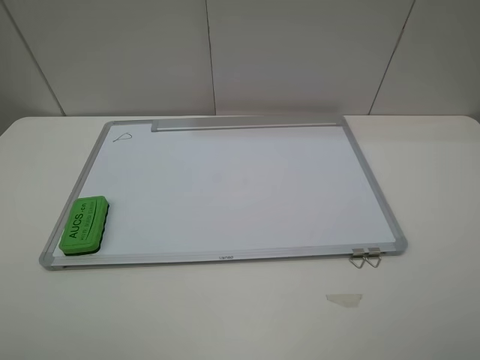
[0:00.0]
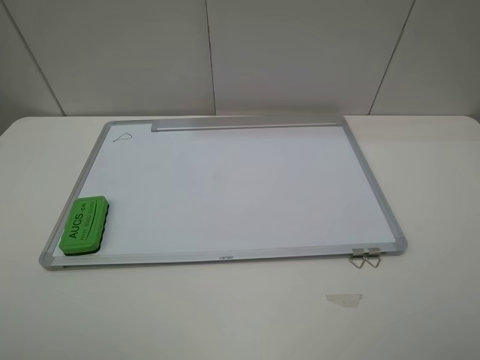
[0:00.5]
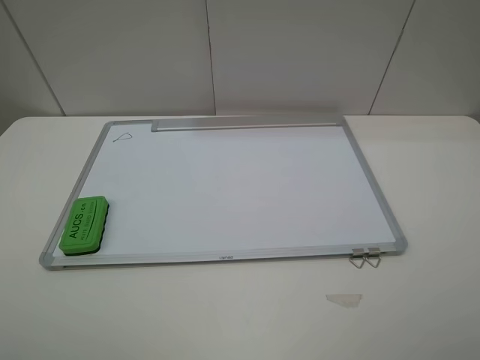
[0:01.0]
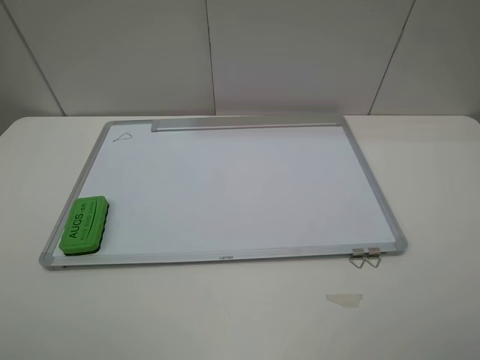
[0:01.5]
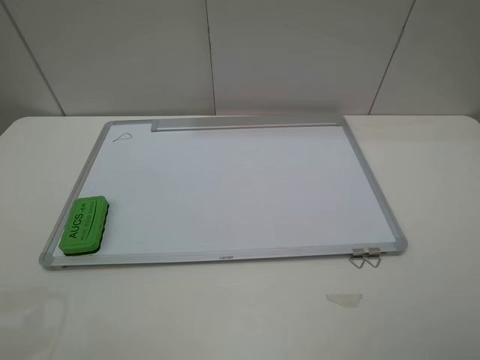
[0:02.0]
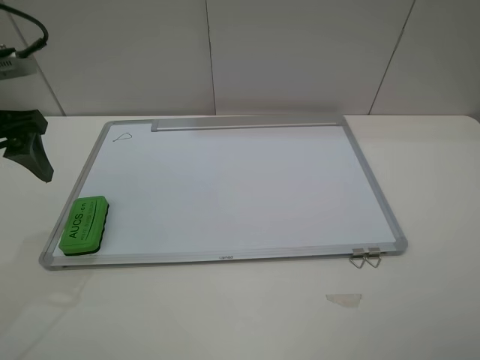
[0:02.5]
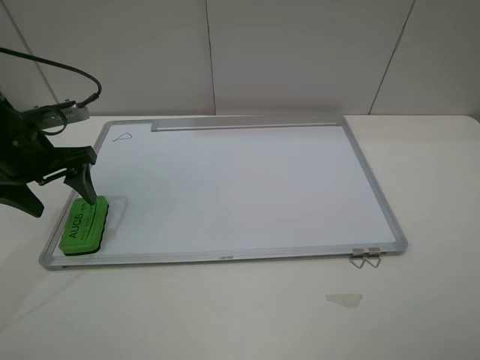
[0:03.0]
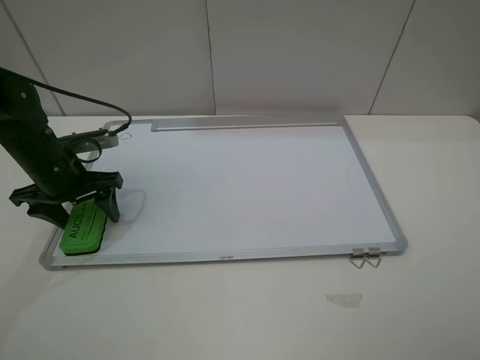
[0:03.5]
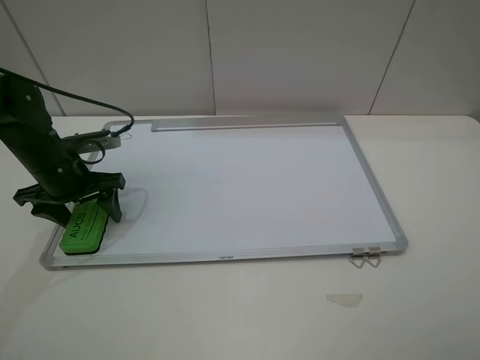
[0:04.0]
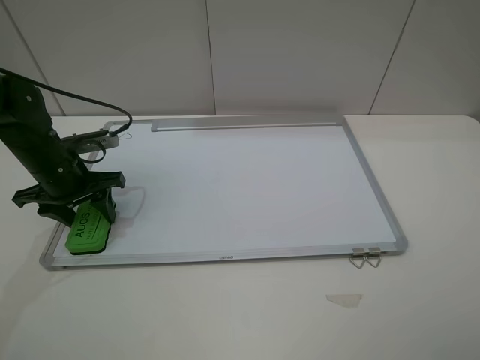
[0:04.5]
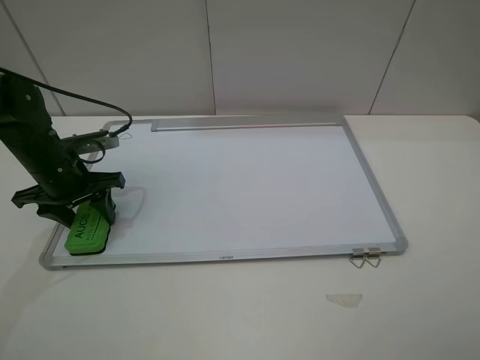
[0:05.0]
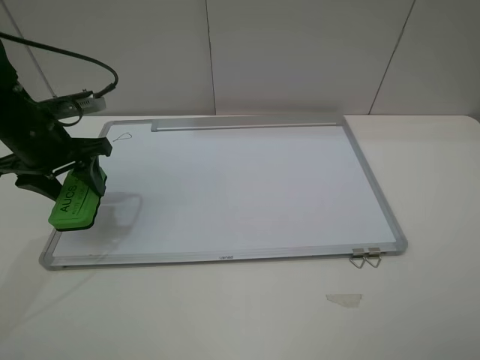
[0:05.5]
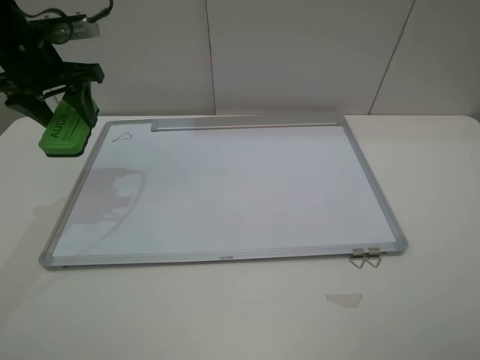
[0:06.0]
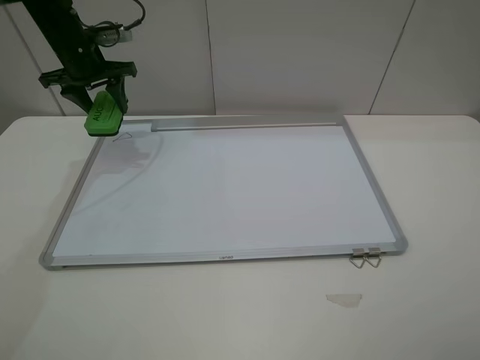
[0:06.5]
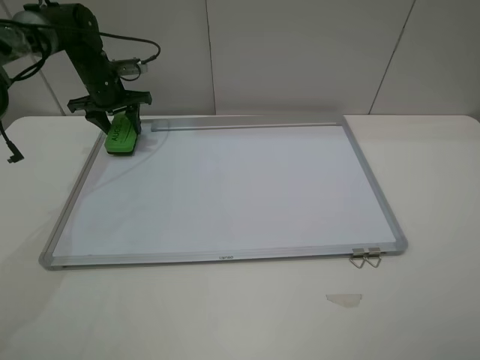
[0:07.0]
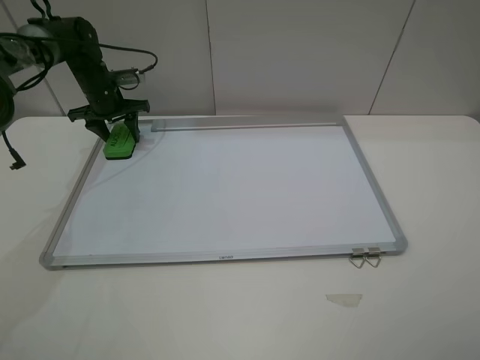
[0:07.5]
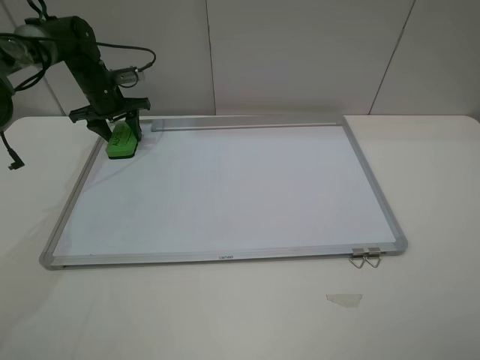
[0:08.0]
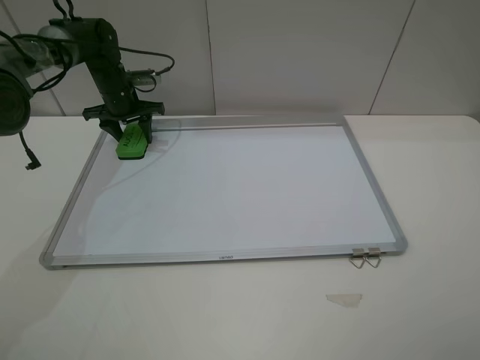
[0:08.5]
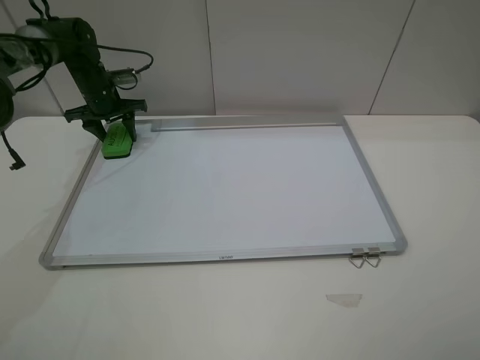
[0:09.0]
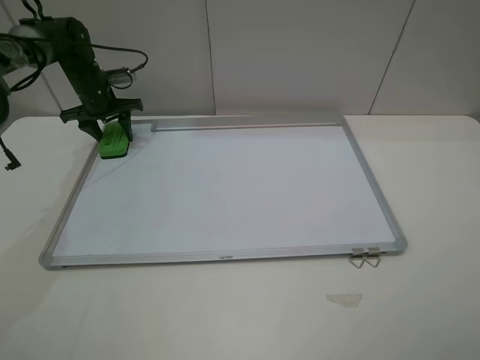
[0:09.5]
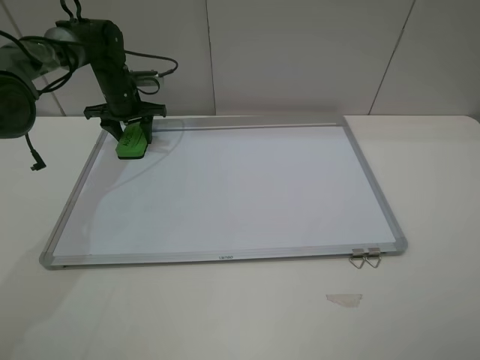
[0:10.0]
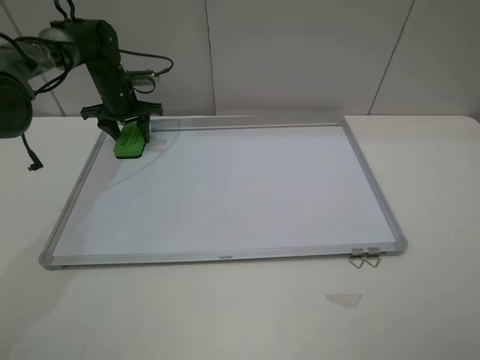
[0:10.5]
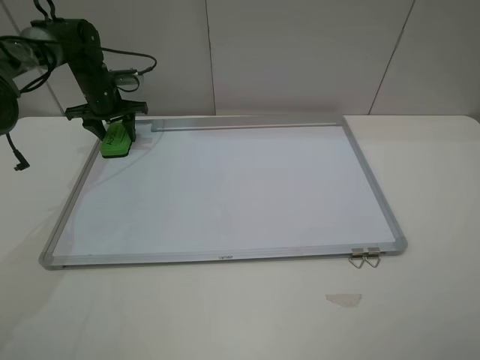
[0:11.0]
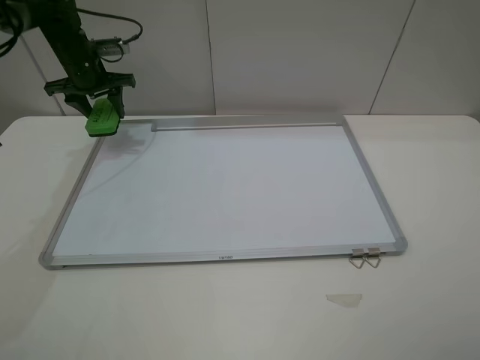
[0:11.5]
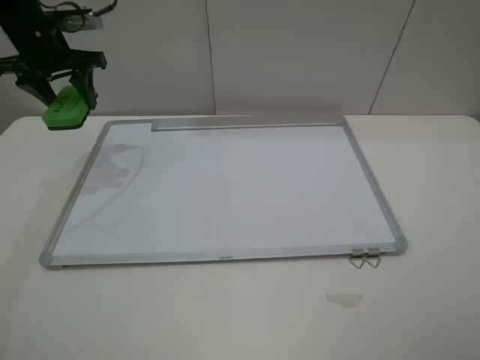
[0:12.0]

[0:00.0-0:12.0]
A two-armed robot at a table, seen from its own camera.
Step, 0:00.0 to 0:04.0: Grasp the eraser with the left gripper.
Step, 0:04.5 to 0:10.5: Grasp the eraser and wipe the blackboard with the left gripper.
0:02.0 to 0:04.0: The left gripper heads downward and forward, covering about 25 cm.
0:04.0 to 0:06.0: The left gripper heads upward and forward, covering roughly 15 cm, and closes.
0:06.0 to 0:08.0: The left gripper heads forward and downward, covering roughly 20 cm.
0:08.0 to 0:10.0: The grippers make only small movements.
0:10.0 to 0:12.0: The left gripper shifts about 15 cm upward and backward.

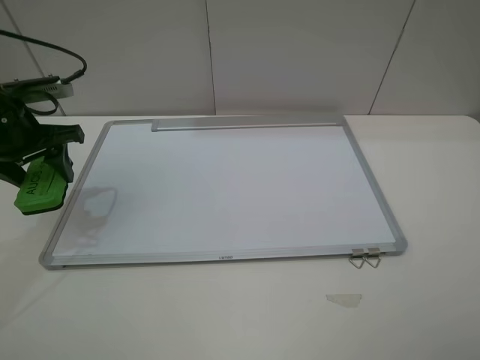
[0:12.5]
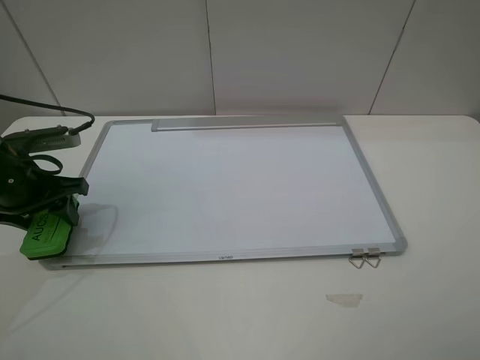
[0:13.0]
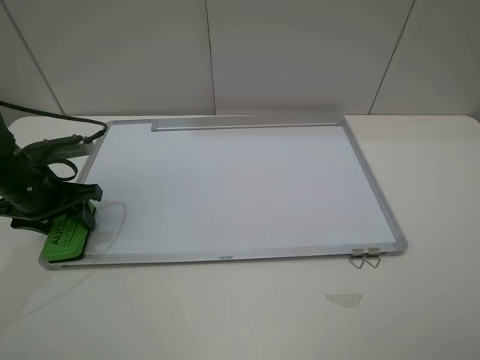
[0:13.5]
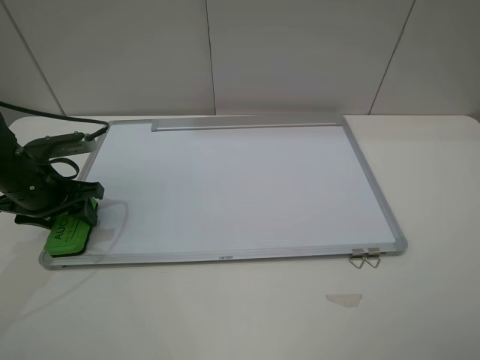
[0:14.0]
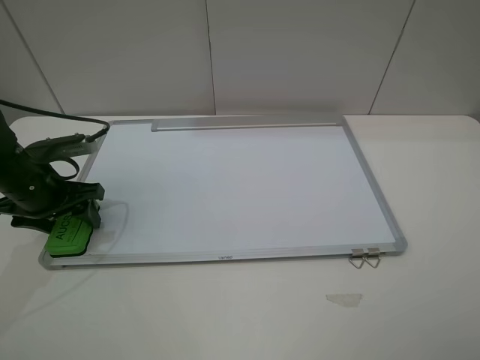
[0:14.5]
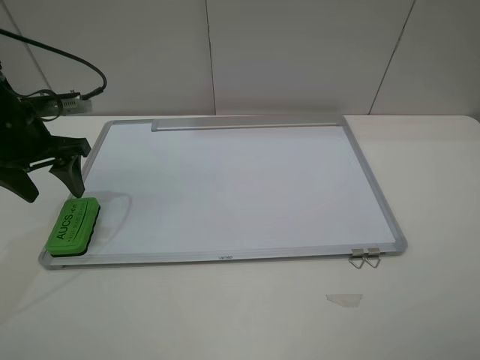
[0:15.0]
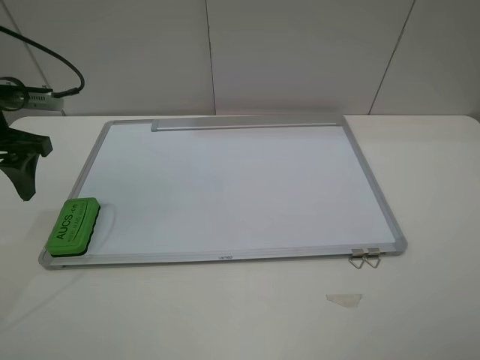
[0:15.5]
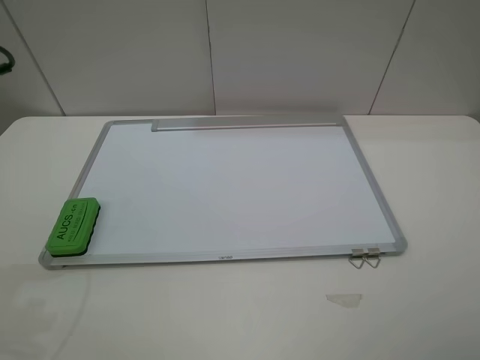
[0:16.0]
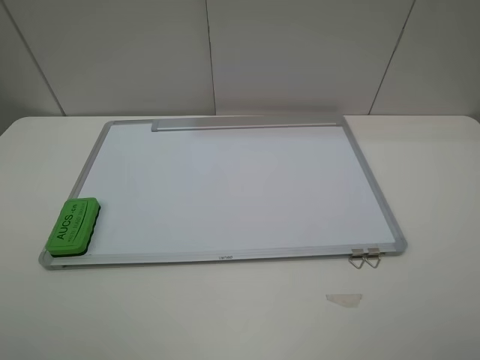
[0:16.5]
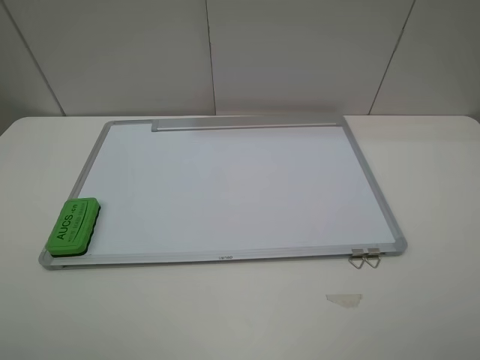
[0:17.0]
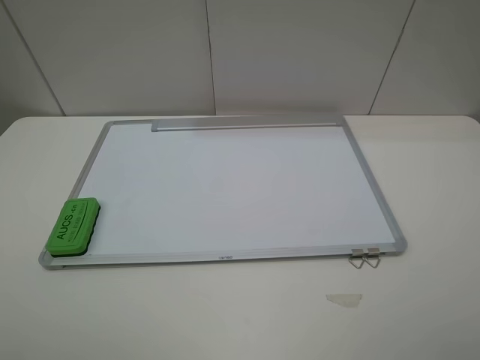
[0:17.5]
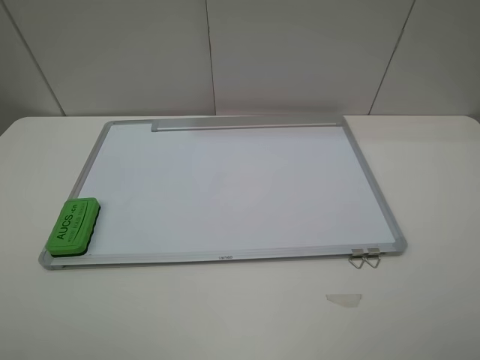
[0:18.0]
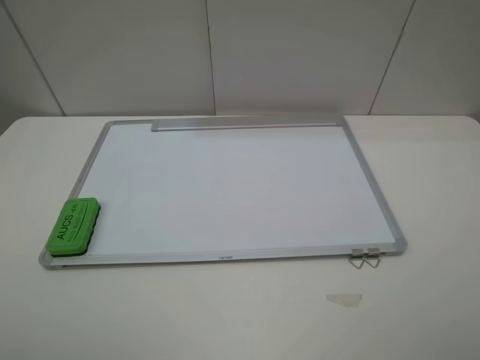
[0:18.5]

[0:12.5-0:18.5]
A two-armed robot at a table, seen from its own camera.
Step, 0:12.5 to 0:14.5: Place the eraser with the left gripper.
0:12.5 to 0:14.5: The left gripper heads downward, covering roughly 10 cm, and opens up.
0:14.5 to 0:16.5: The left gripper travels backward and upward by about 25 cm.

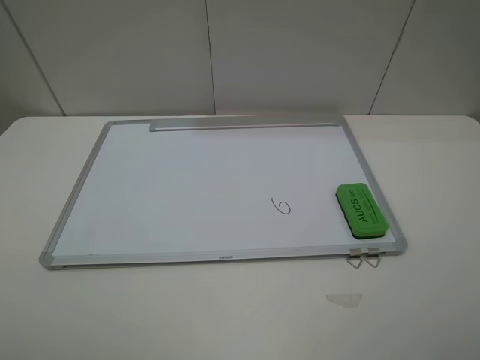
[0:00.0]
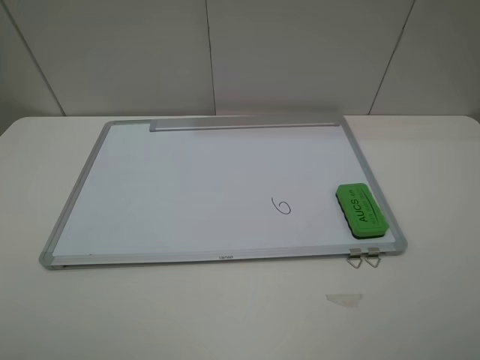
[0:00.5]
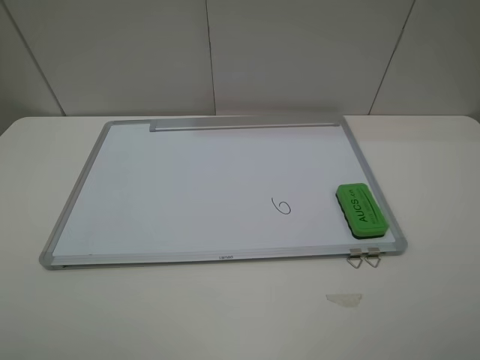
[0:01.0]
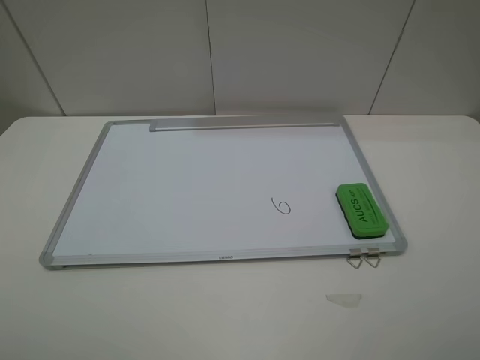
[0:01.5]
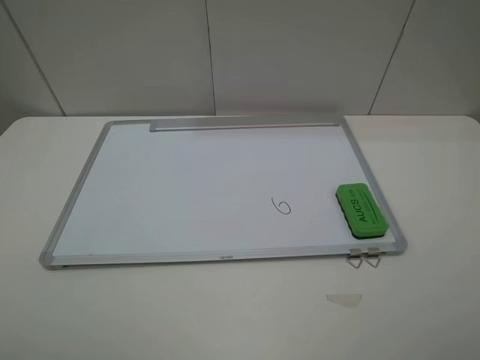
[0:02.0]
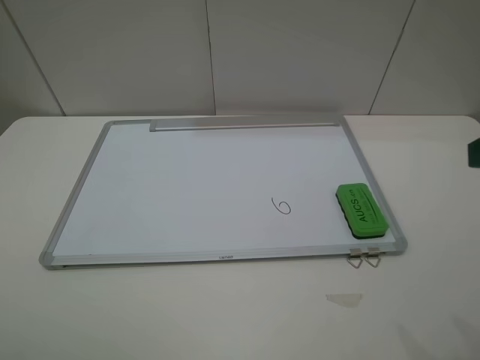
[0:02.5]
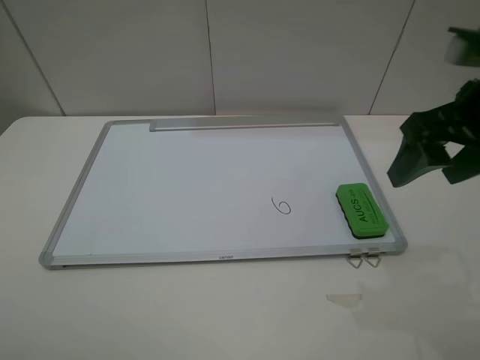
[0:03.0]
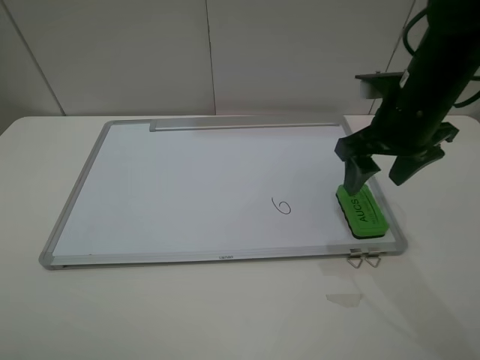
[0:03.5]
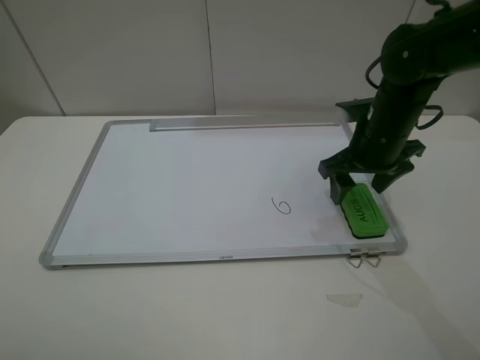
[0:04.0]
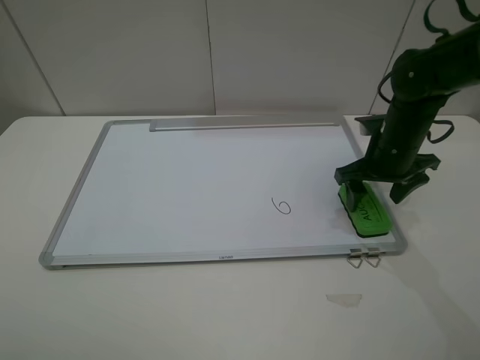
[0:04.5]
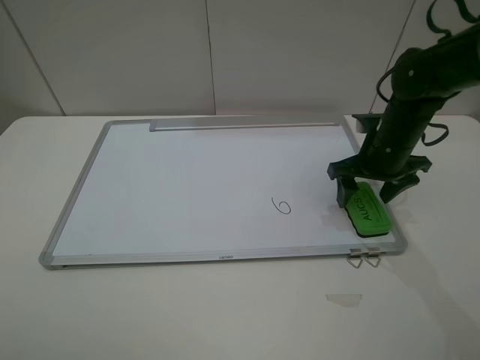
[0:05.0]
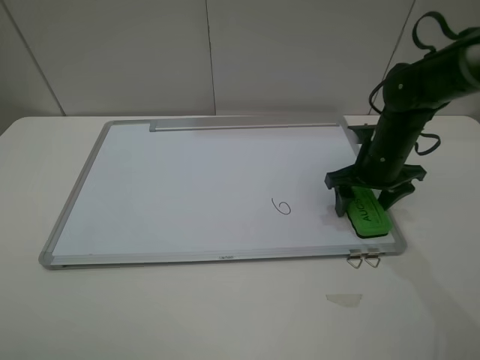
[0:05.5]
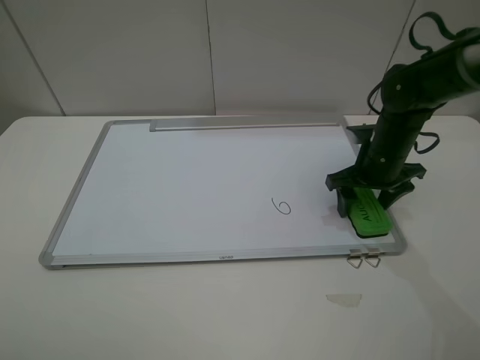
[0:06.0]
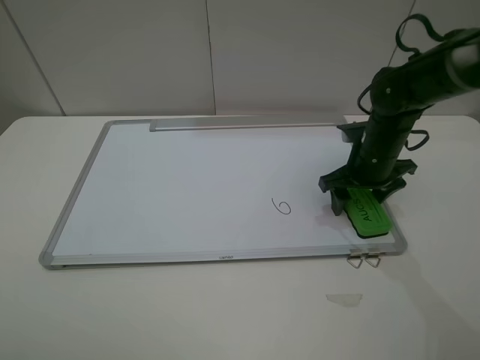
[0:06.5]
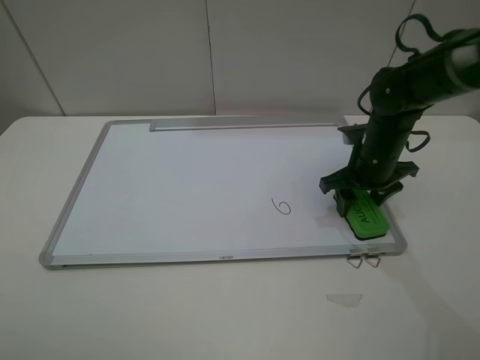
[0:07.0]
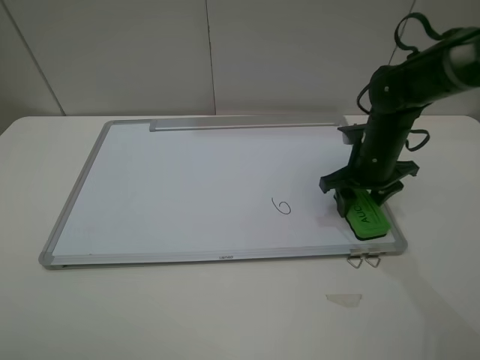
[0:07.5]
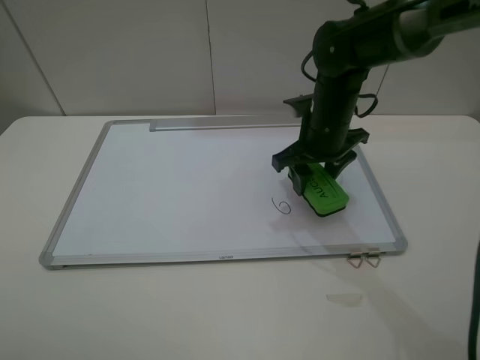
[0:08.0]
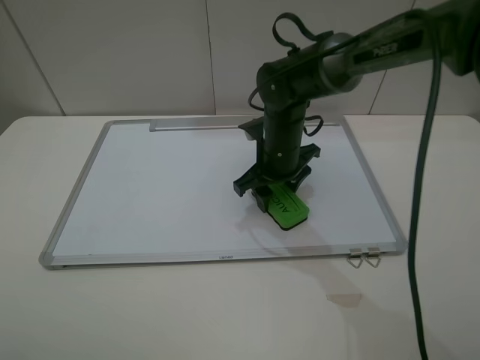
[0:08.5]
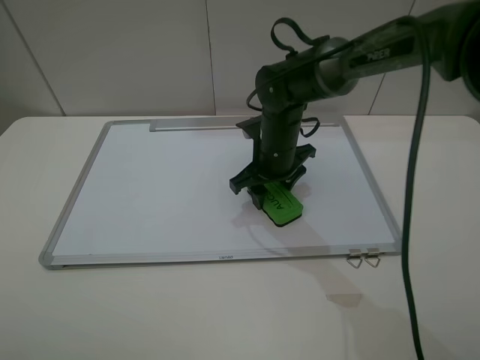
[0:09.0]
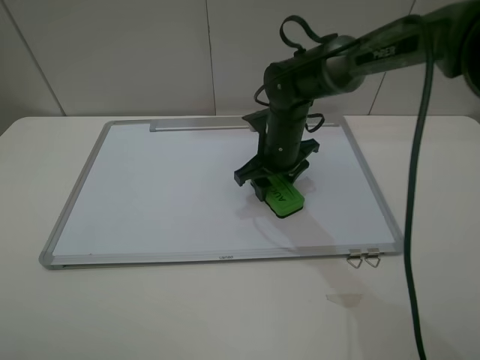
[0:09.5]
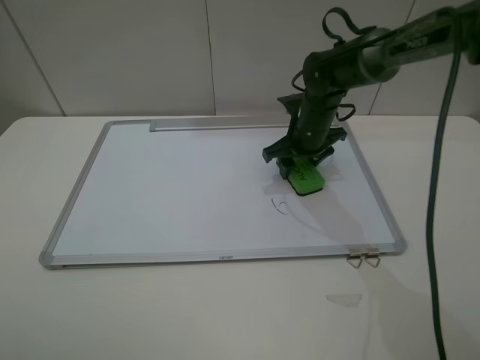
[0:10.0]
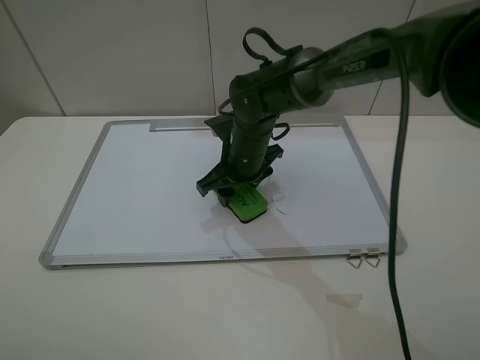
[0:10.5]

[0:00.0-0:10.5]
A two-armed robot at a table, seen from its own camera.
Step, 0:00.0 to 0:07.0: Grasp the eraser with the right gripper.
0:00.0 to 0:02.0: Both grippers stay put.
0:02.0 to 0:04.0: The right gripper goes roughly 30 cm forward.
0:04.0 to 0:06.5: The right gripper moves downward, roughly 5 cm.
0:06.5 to 0:08.5: The right gripper is displaced to the left by about 15 cm, and closes.
